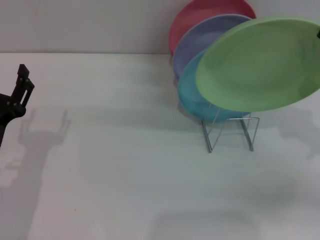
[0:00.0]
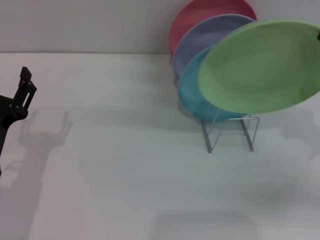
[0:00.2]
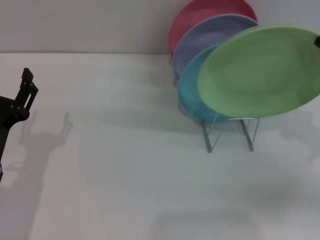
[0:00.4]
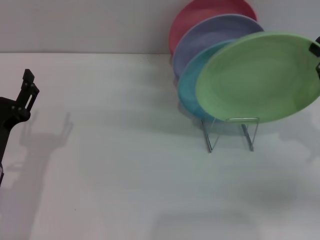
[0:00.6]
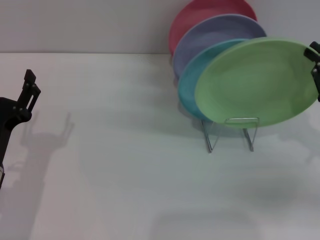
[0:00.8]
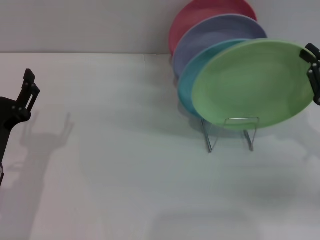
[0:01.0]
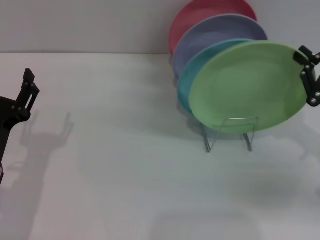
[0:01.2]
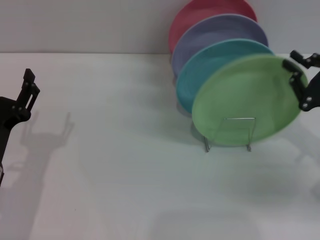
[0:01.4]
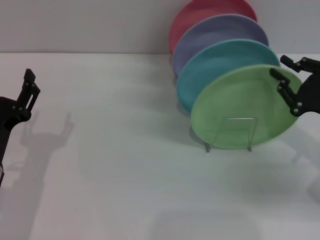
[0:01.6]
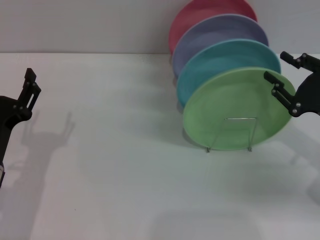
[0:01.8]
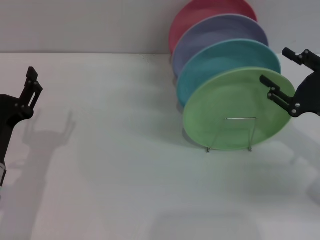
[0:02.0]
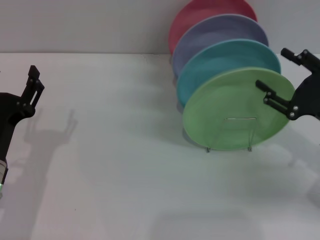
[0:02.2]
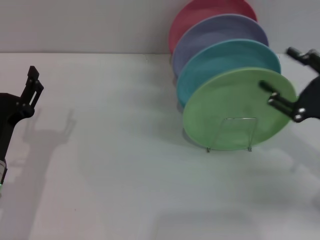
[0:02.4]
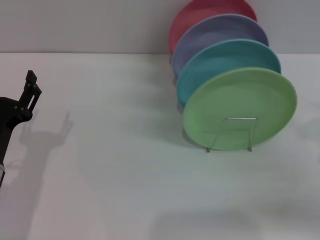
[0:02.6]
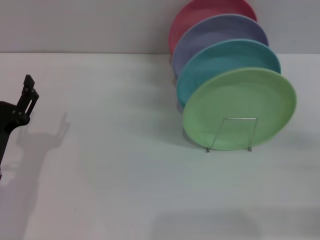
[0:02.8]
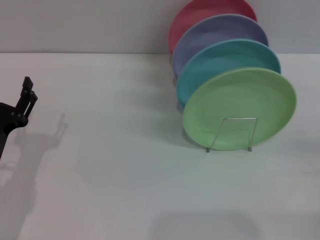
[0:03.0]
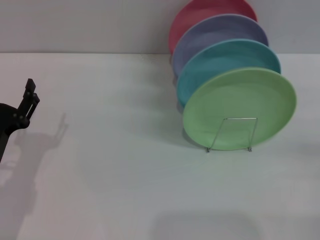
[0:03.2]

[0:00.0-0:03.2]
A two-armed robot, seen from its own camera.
Task of the whole recording: Grip the plate with one hand, pass it to the other, then set it on the shelf.
Step, 0:00.0 to 0:02.4: Place the plate on the shelf with the right gripper.
0:00.0 to 0:01.6: The right gripper changes place by approximately 5 cm.
0:01.6 to 0:03.2: The right gripper moves backward and to the right, approximately 10 cm, and opens its fingers.
